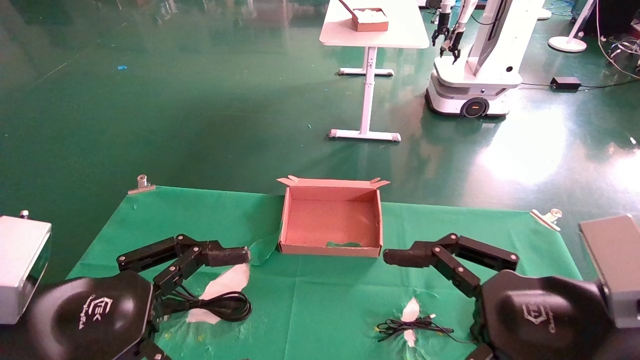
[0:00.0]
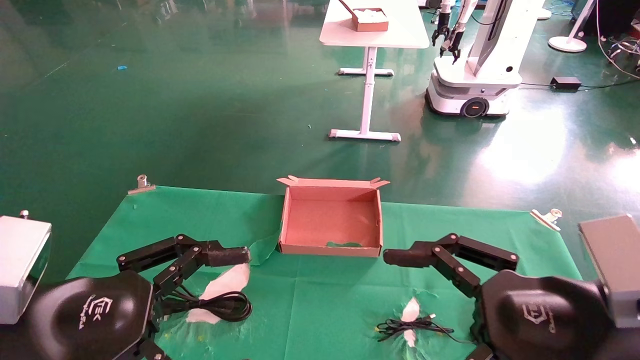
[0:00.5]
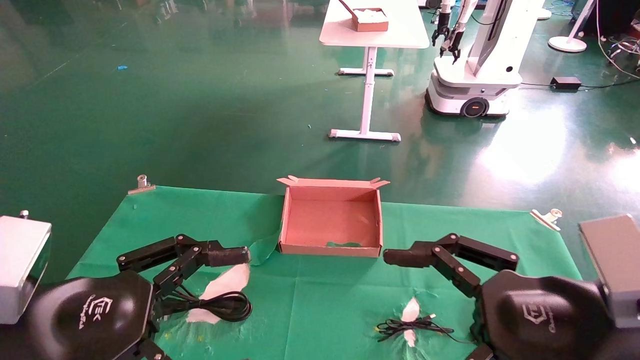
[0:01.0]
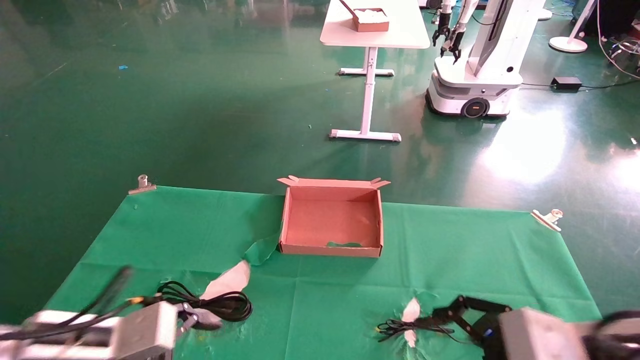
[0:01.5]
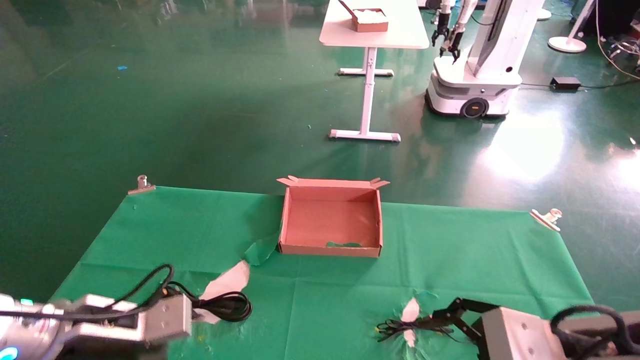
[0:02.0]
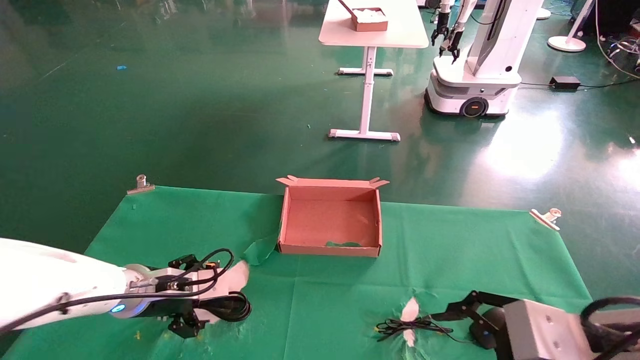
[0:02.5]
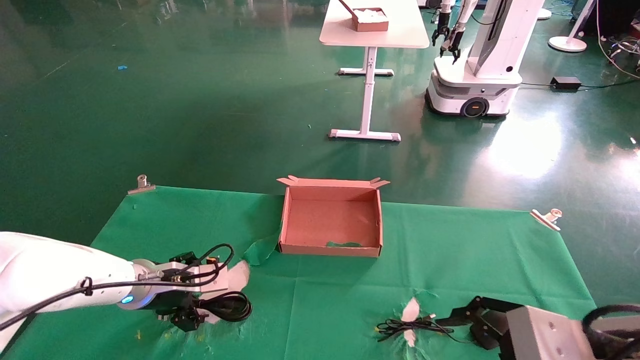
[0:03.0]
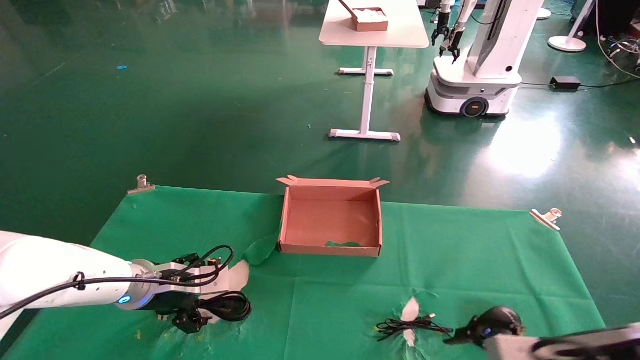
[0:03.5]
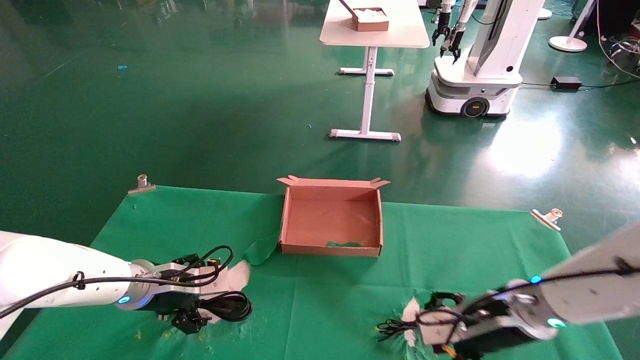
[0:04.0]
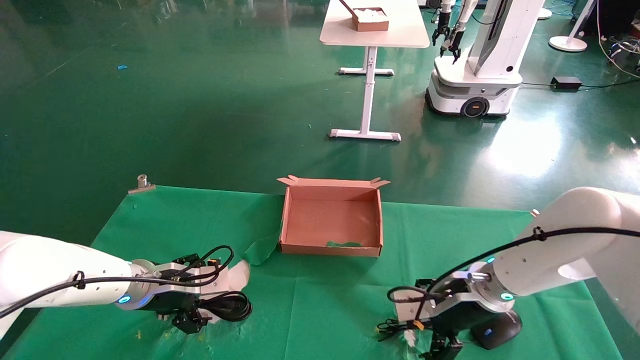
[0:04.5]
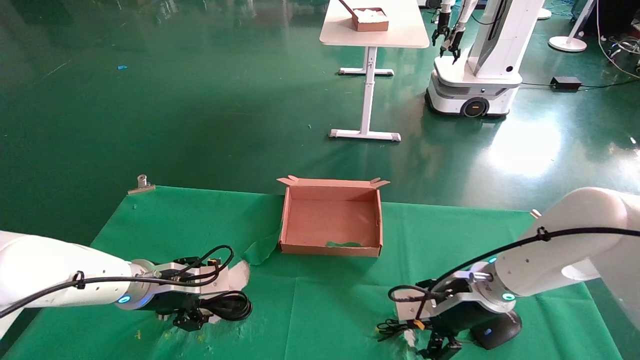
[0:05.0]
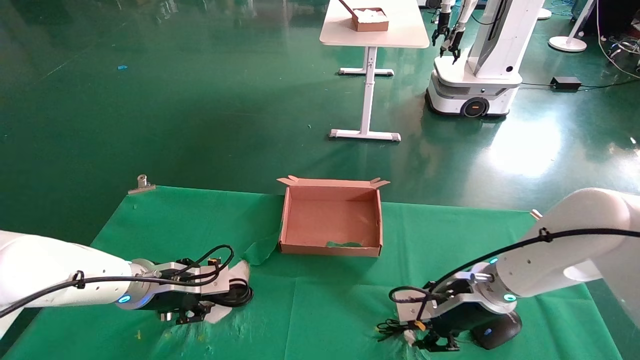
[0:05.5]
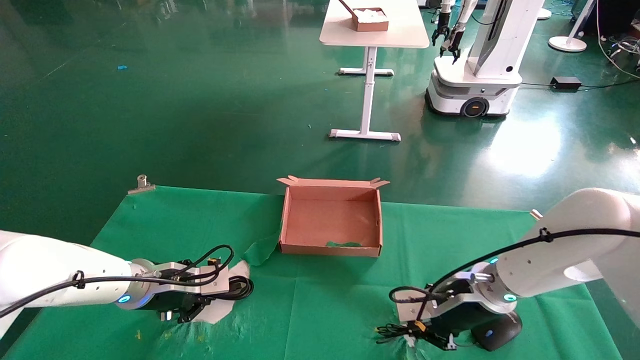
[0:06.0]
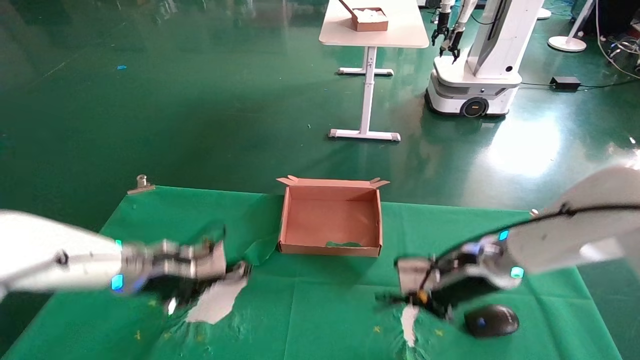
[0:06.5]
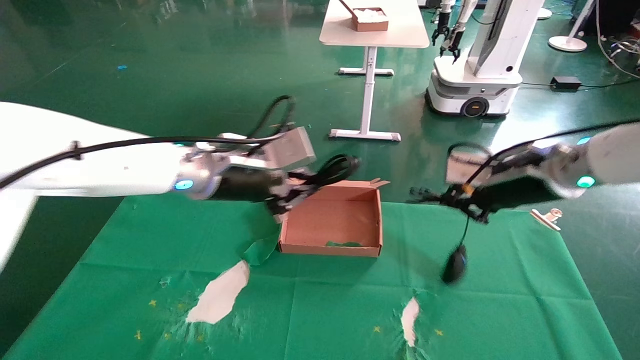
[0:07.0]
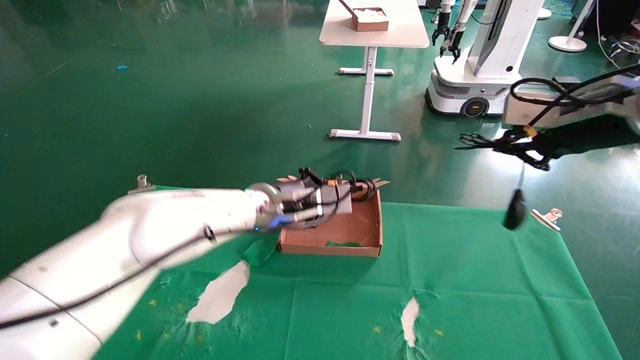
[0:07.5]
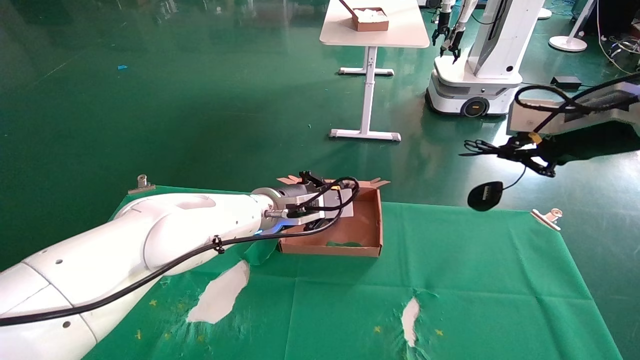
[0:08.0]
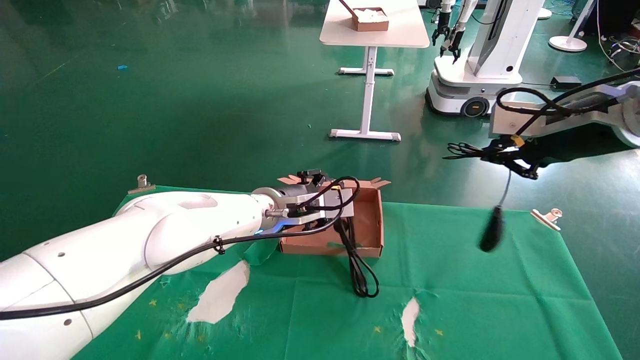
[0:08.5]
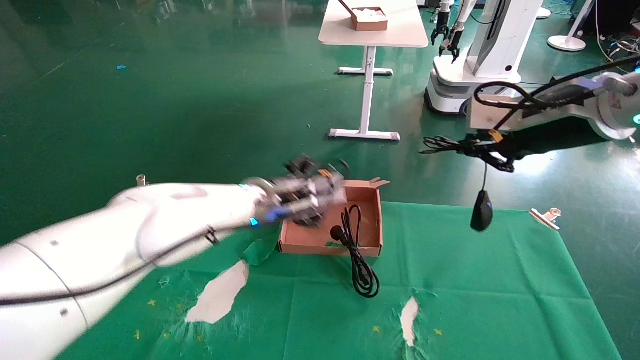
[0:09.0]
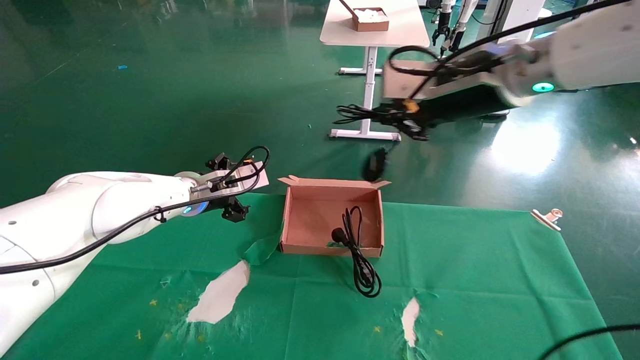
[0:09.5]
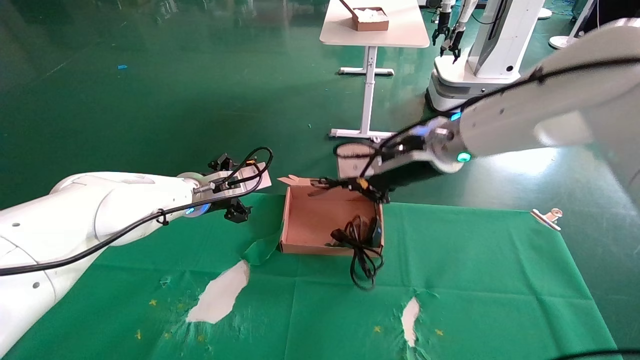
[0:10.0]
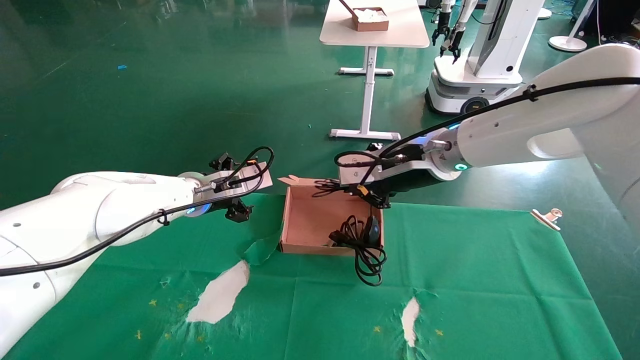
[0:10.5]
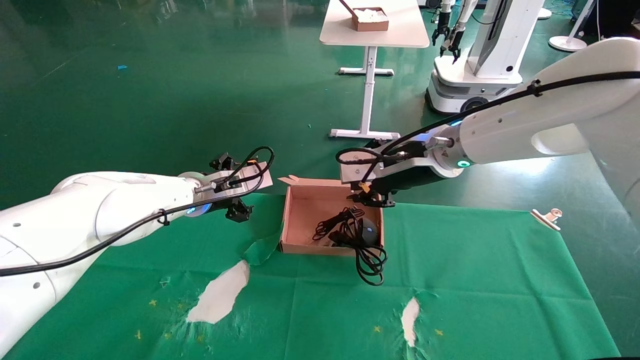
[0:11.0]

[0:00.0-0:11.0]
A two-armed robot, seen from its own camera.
Step, 0:02.0 to 0:06.0: Grab and lift both the mouse and power cord from the accessory packaging area at the same time.
0:00.0 to 0:02.0: The right gripper ends up some 5 cm from where it was. The left gripper is displaced forward and downward by about 15 cm.
0:02.0 to 0:03.5: The left gripper moves forward, some 10 cm.
0:03.5 to 0:05.5: The right gripper is displaced forward and to the left by some 15 cm, and closes its fingers; the left gripper closes.
0:05.5 to 0:07.5: The left gripper heads to the right and upward, covering some 20 cm, and closes up; the right gripper travels upward and to the right by some 25 cm, and closes up.
0:07.5 to 0:09.0: The right gripper travels to the left by roughly 5 cm. Meanwhile the left gripper opens up.
0:09.0 to 0:11.0: The right gripper travels to the left, forward and downward by about 15 cm; the left gripper travels to the left by roughly 10 cm.

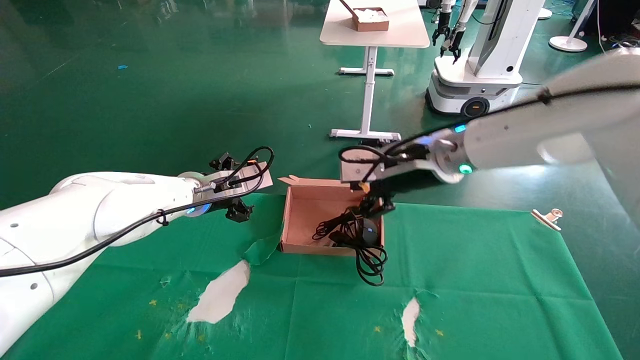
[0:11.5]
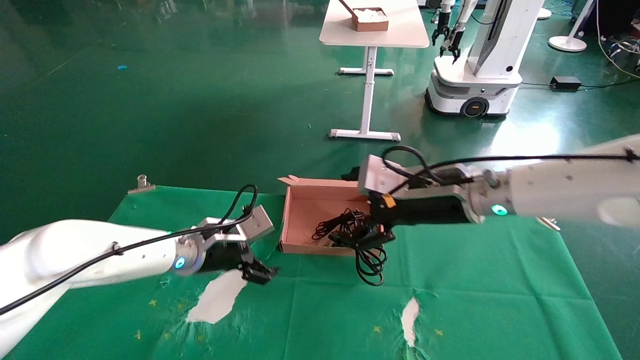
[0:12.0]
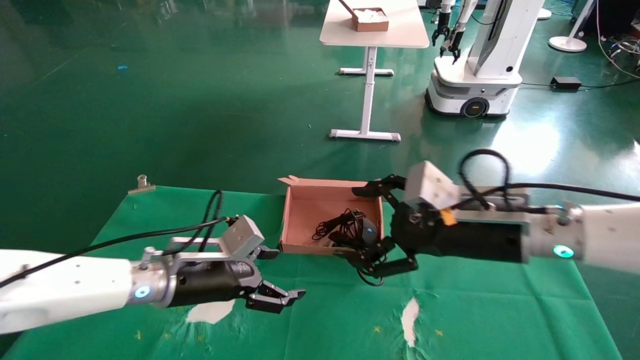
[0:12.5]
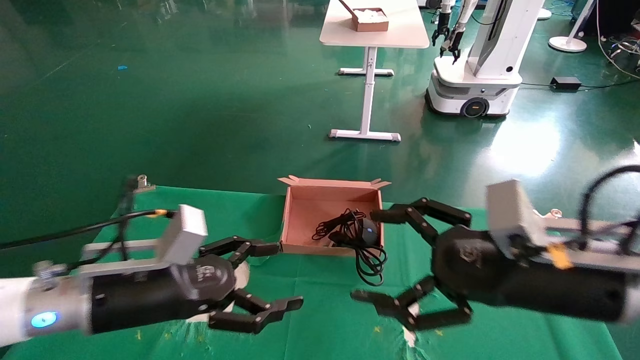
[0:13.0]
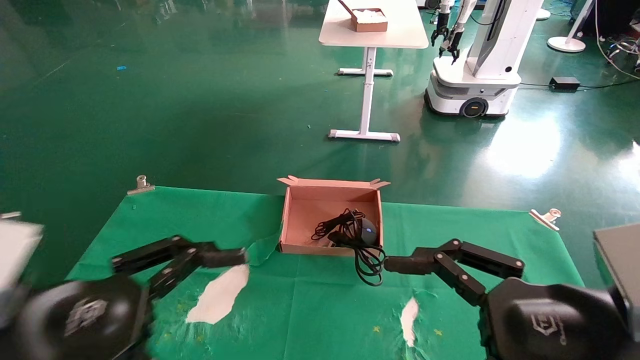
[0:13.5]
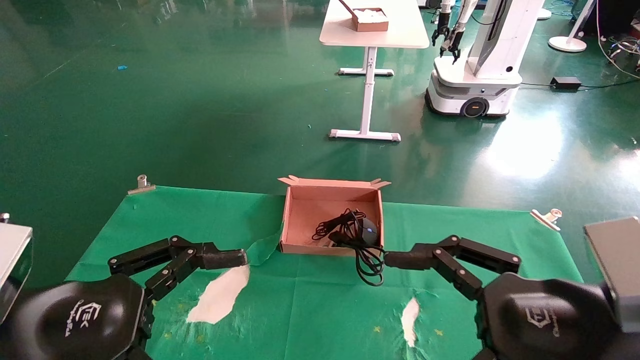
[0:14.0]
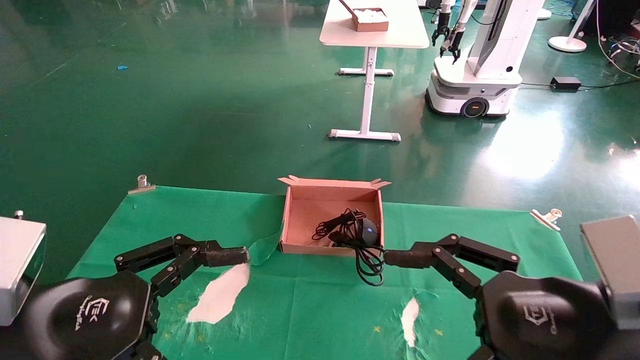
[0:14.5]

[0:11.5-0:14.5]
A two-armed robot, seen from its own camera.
0:11.5 to 0:13.0: The right gripper travels backward, to the right and downward by some 20 cm, while the left gripper is displaced backward by approximately 20 cm.
0:13.0 to 0:14.5: The right gripper shifts roughly 5 cm backward; the left gripper moves backward, approximately 10 cm.

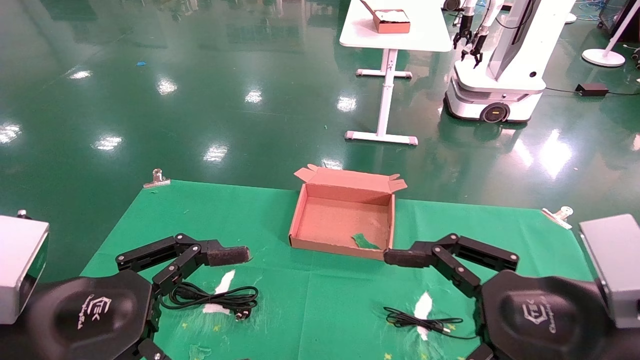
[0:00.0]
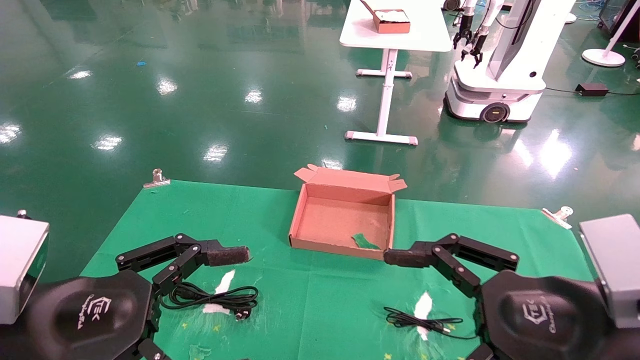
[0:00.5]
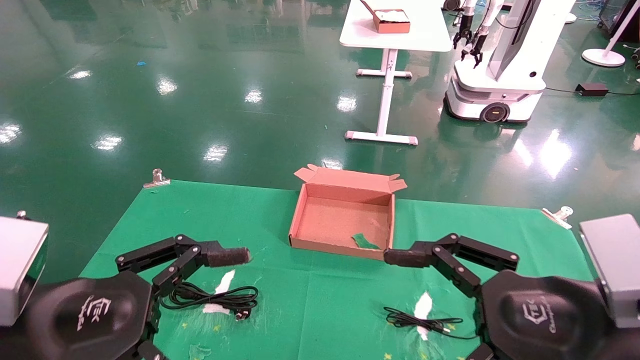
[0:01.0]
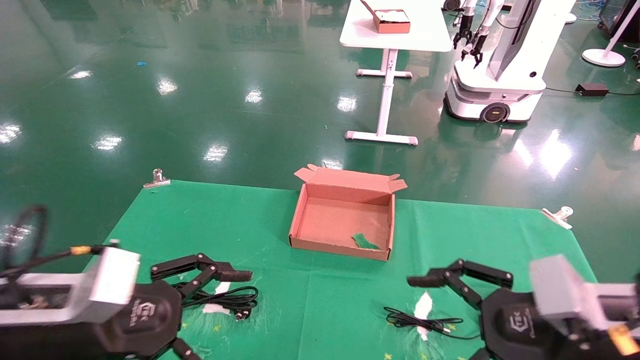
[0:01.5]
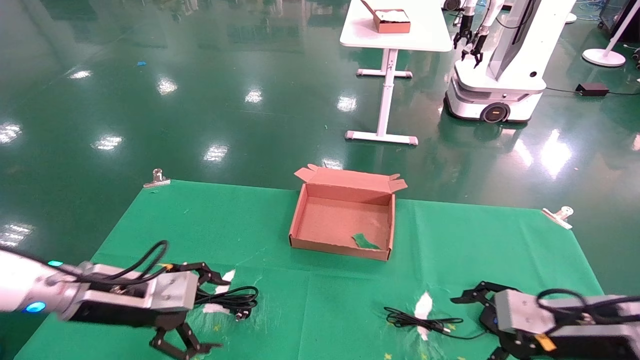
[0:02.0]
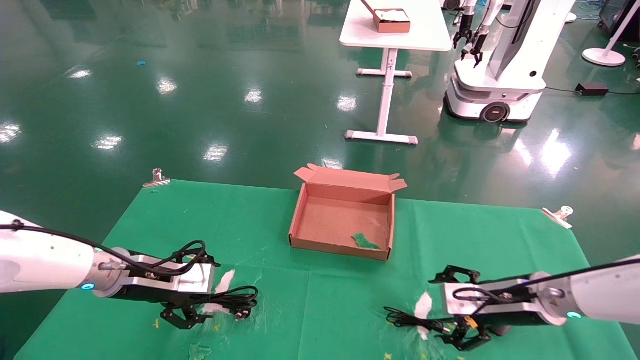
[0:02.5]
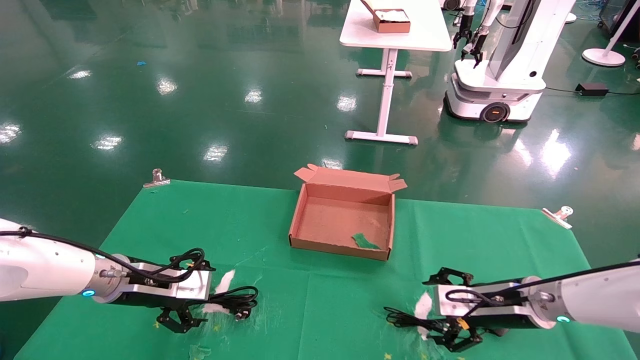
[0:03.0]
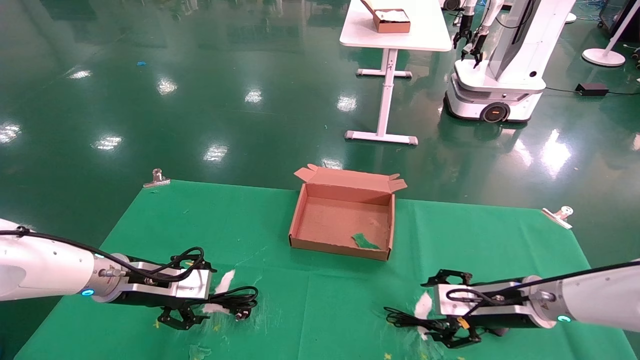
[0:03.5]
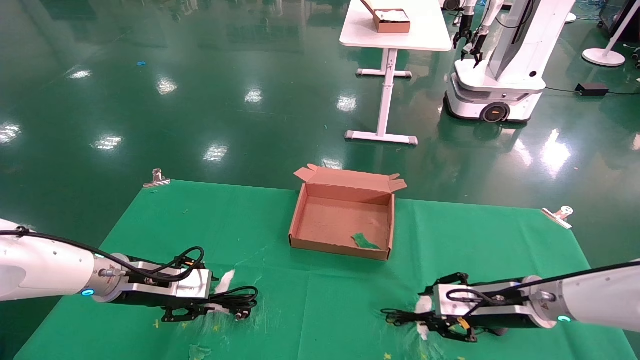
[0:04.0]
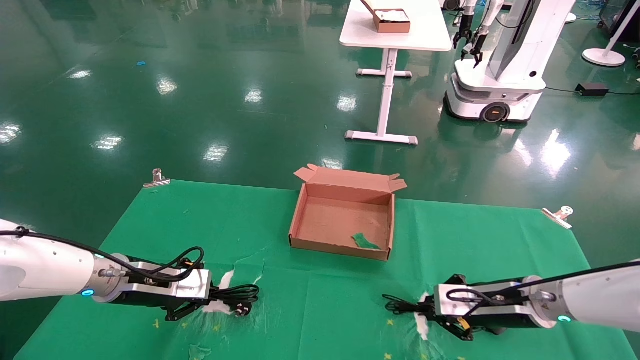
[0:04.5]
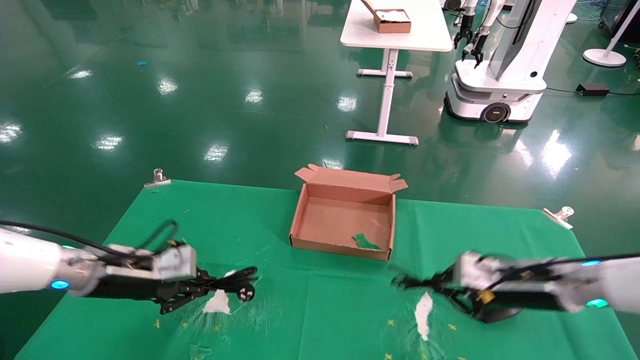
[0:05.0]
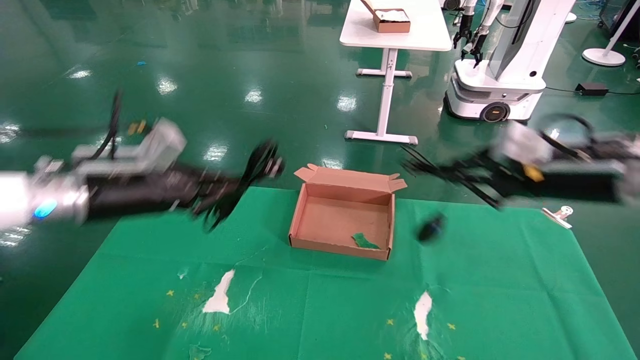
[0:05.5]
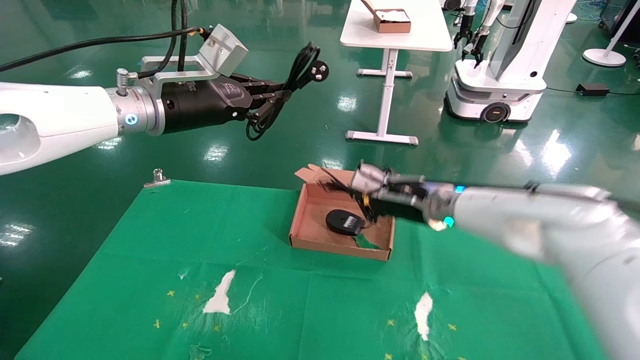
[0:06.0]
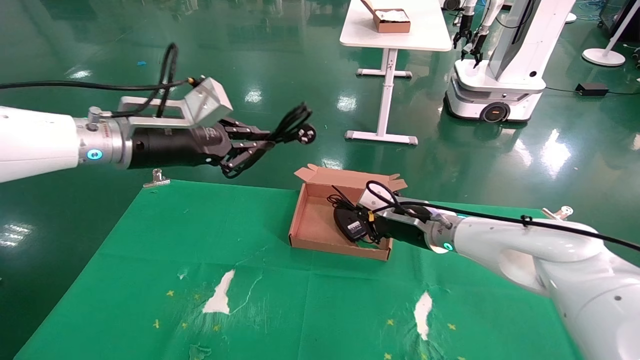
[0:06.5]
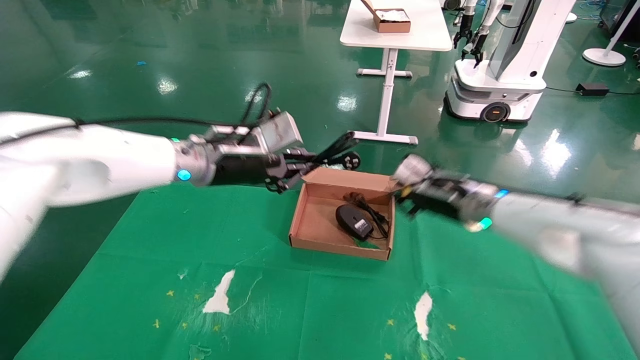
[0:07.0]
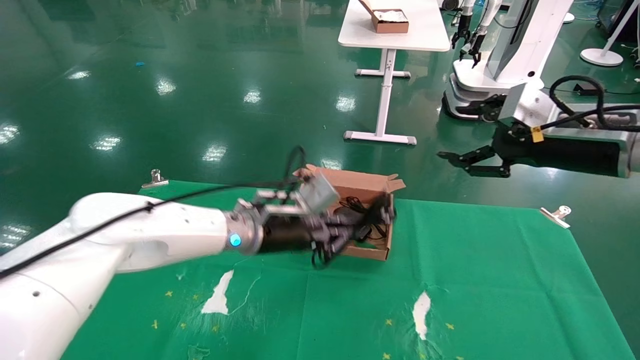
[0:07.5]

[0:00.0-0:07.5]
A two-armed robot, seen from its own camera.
Step, 0:01.5 to 0:04.0: Grab and lift both the mouse and power cord from the accessory packaging area at the same time.
0:00.0 to 0:02.0: The right gripper travels forward, downward and to the right by some 20 cm. The left gripper goes about 15 cm forward.
0:02.0 to 0:04.0: The grippers both shift forward by some 10 cm. The left gripper closes its fingers, while the right gripper closes its fingers.
0:04.0 to 0:05.5: Both grippers travel together upward, some 15 cm. The left gripper closes its fingers, while the right gripper closes.
0:05.5 to 0:07.5: The left gripper travels to the right by about 20 cm, while the right gripper goes approximately 5 cm upward, reaches approximately 15 cm to the left, then returns, and opens its fingers.
